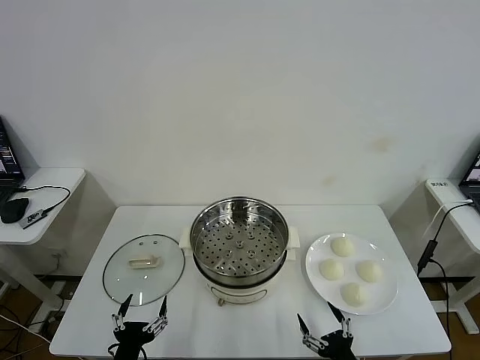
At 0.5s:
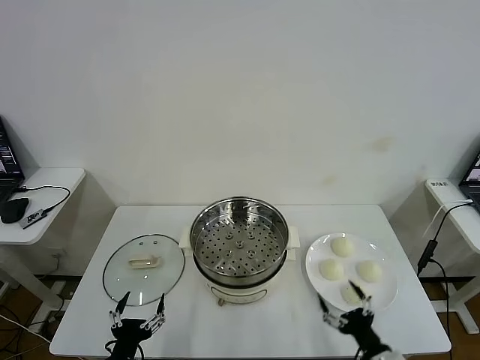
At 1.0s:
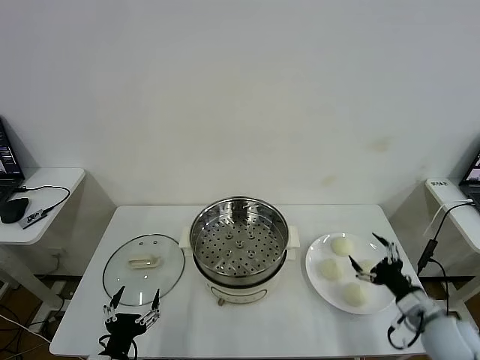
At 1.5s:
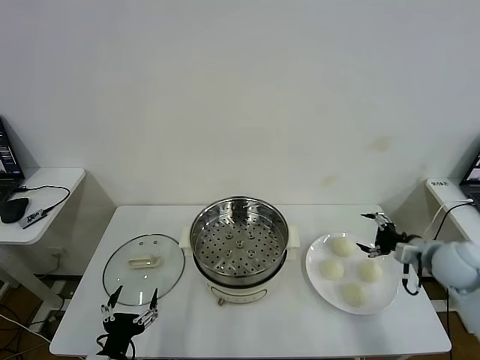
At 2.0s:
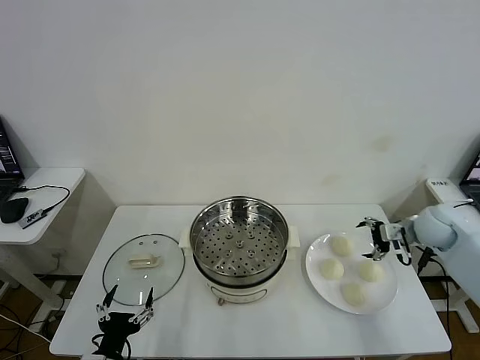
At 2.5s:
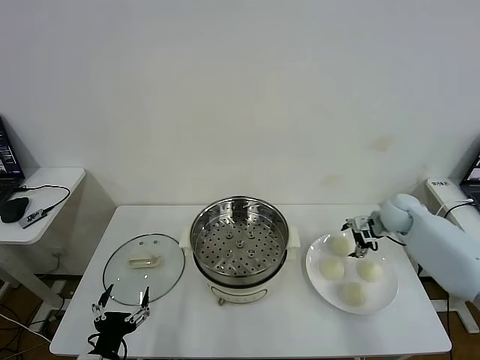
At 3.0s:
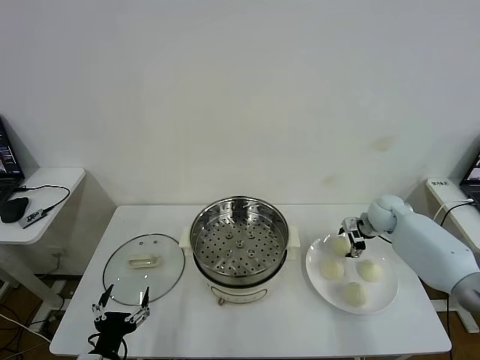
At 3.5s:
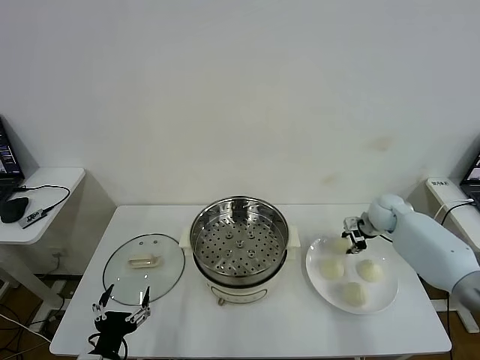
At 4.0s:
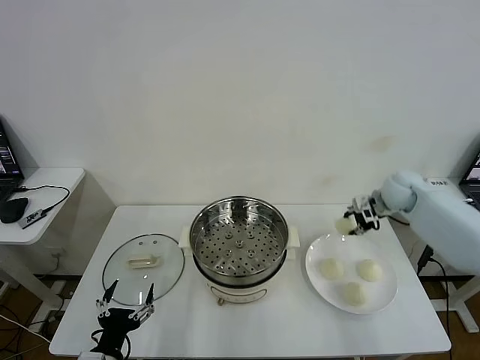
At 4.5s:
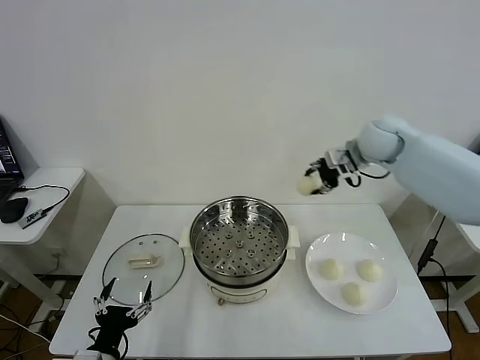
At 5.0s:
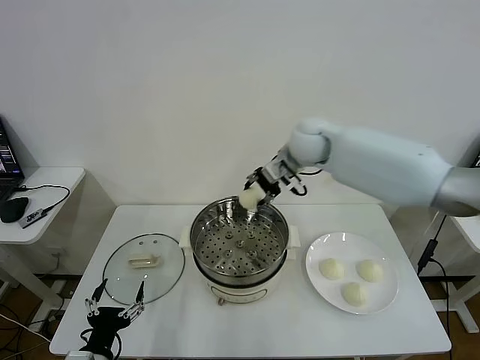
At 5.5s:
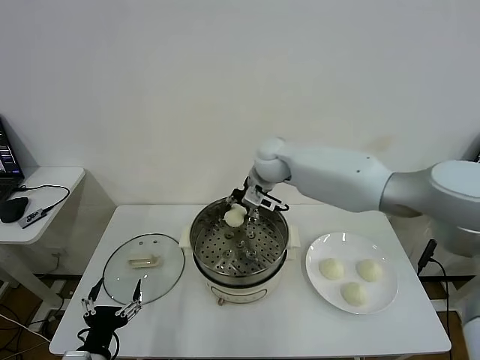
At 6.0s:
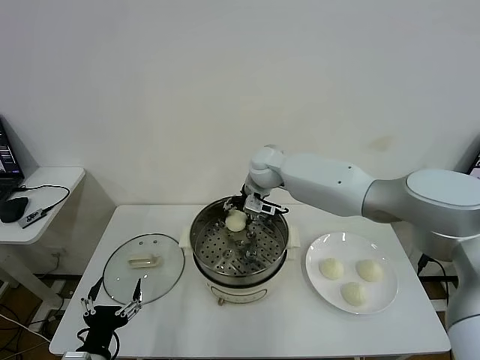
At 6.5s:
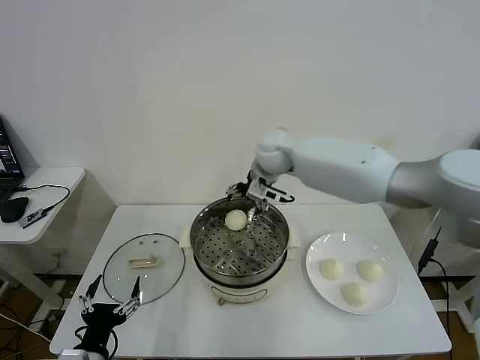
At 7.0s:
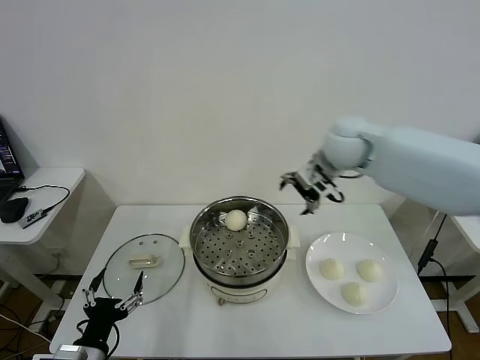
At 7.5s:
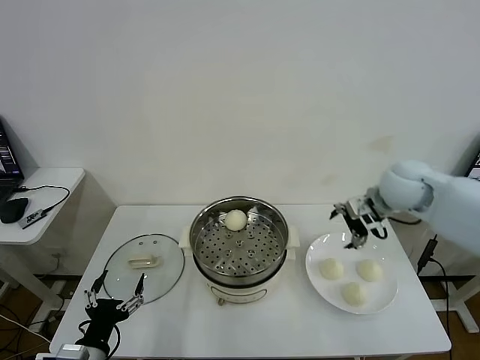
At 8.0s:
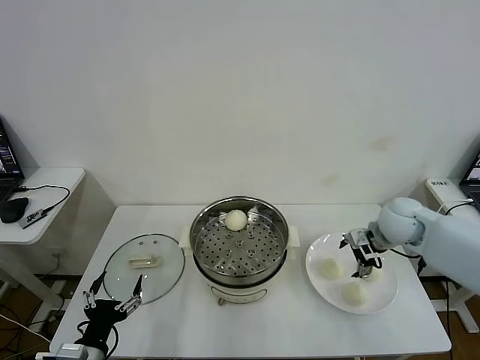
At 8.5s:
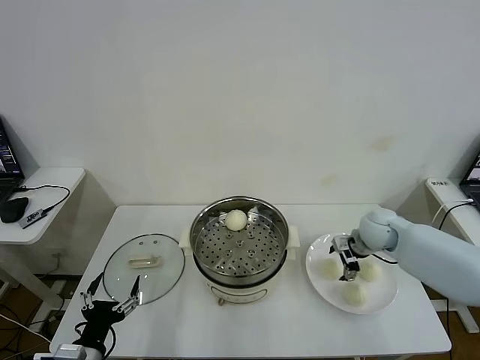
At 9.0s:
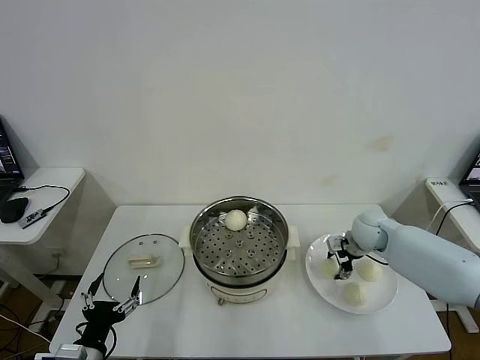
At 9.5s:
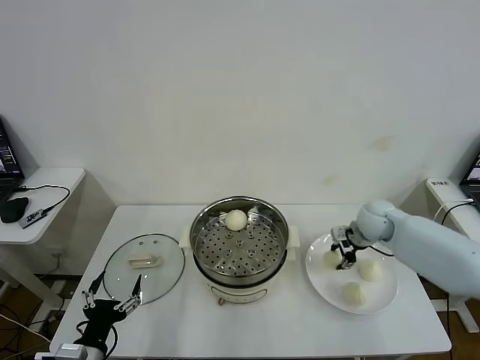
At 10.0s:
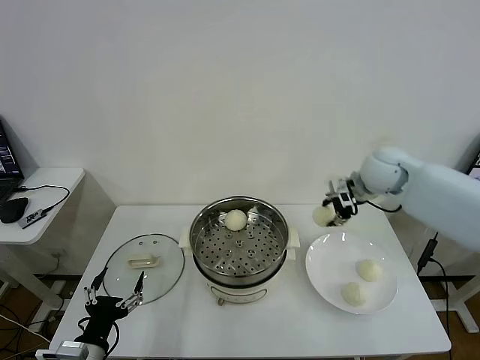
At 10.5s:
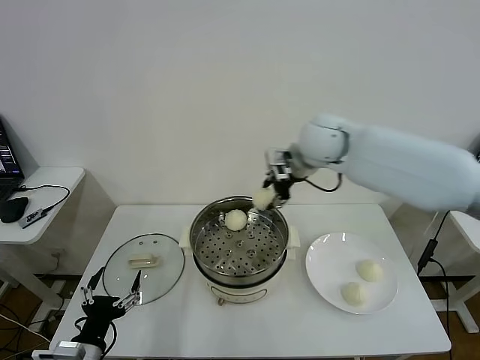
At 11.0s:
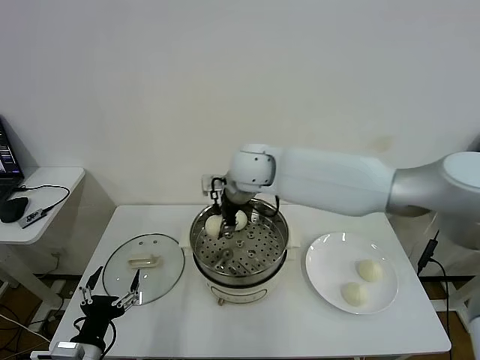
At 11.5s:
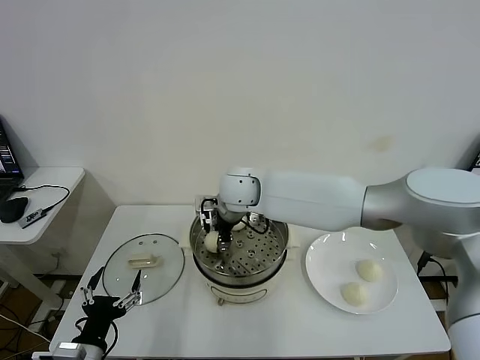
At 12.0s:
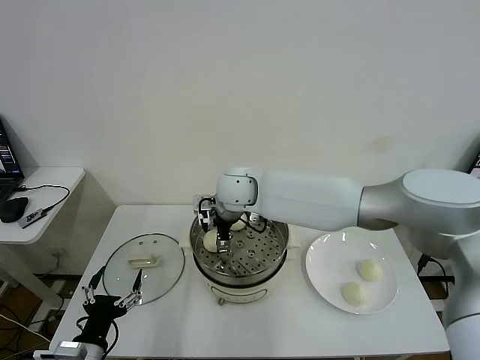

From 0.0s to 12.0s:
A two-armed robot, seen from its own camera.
Task of the whole recording: take steamed baozi put them in steamer then cover it.
Step, from 0.0s to 3.0s: Grasp the baozi in the plate with right gripper.
Step, from 3.5s to 6.0s: Place the baozi on the steamer with right gripper.
Step, from 6.5s to 9.0s: Grasp the baozi in the plate with right gripper.
Step, from 9.5s to 12.0s: Place the baozi on the steamer with right gripper.
From 2.0s to 4.0s: The right gripper travels upward, forward and to the left by about 10 cm, and closes up.
From 4.0s to 6.0s: The right gripper shifts approximately 30 cm to the left, and opens.
From 6.0s to 8.0s: The right gripper travels to the right and backward by about 30 cm.
From 8.0s to 10.0s: The right gripper moves upward, to the left and forward, approximately 15 cm, and closes.
From 10.0s to 12.0s: The right gripper travels to the left by approximately 30 cm, and opens.

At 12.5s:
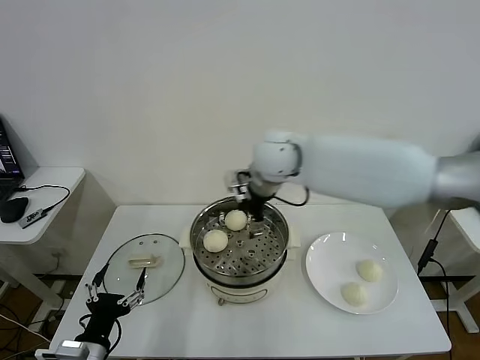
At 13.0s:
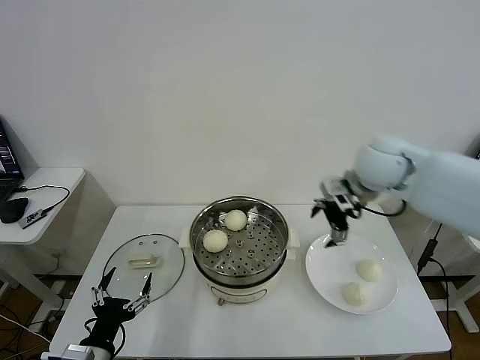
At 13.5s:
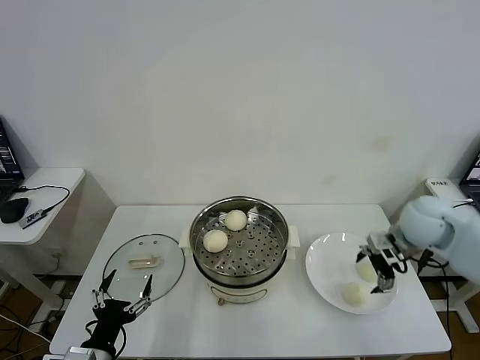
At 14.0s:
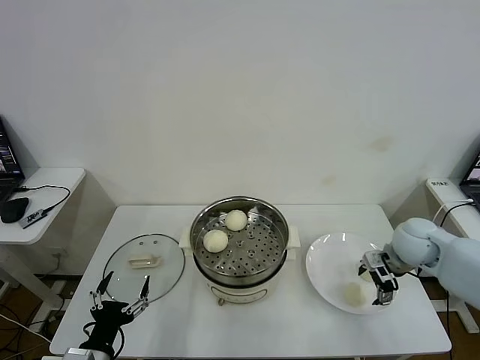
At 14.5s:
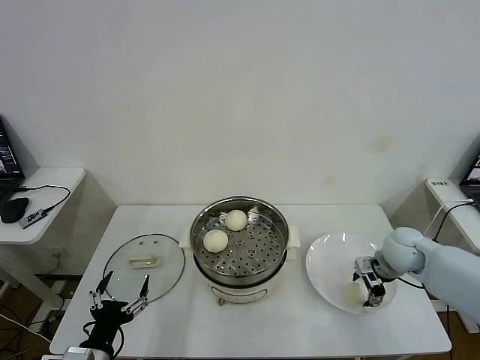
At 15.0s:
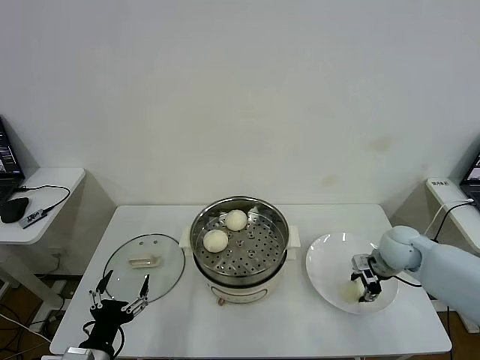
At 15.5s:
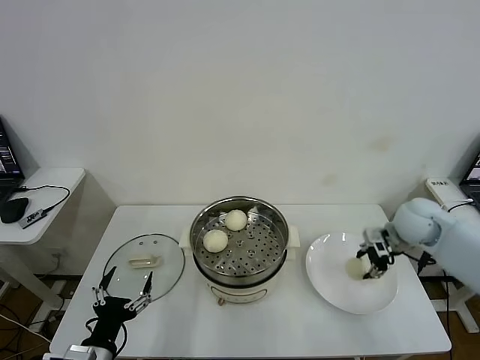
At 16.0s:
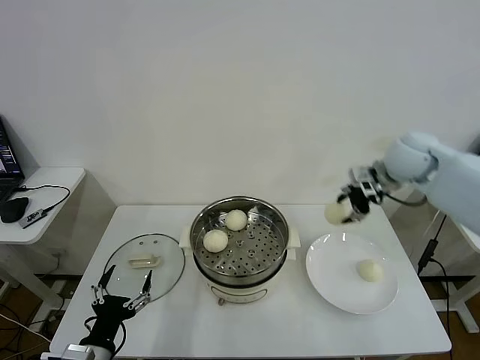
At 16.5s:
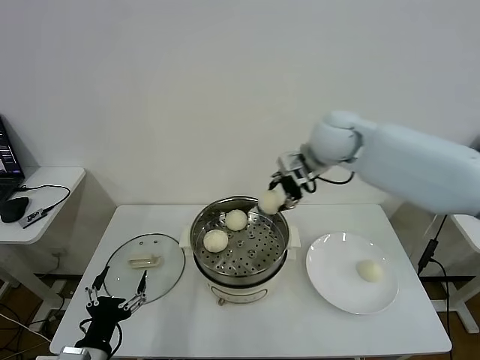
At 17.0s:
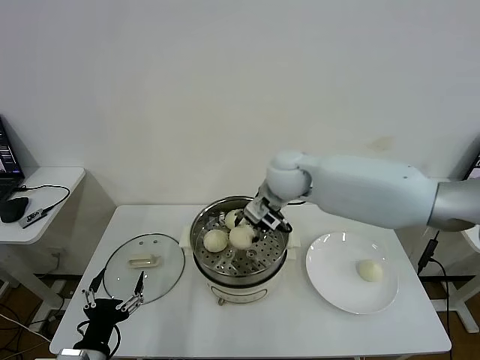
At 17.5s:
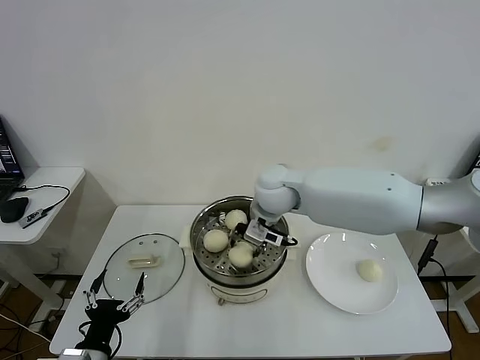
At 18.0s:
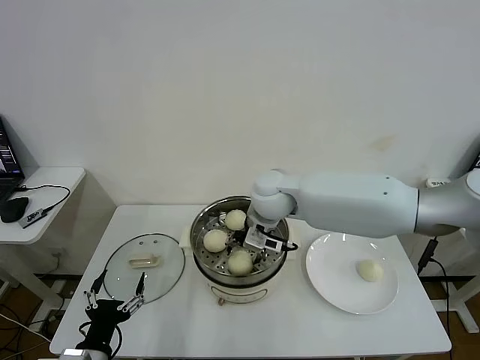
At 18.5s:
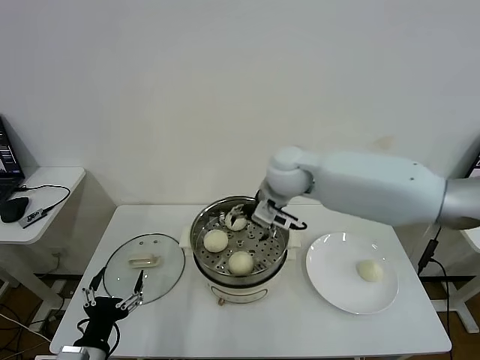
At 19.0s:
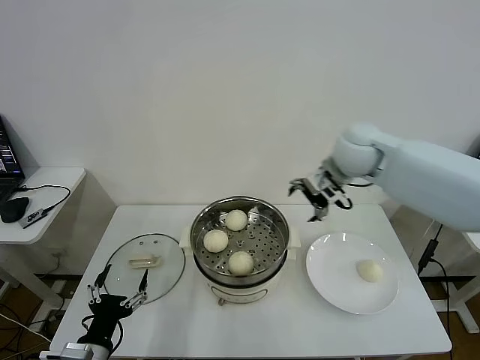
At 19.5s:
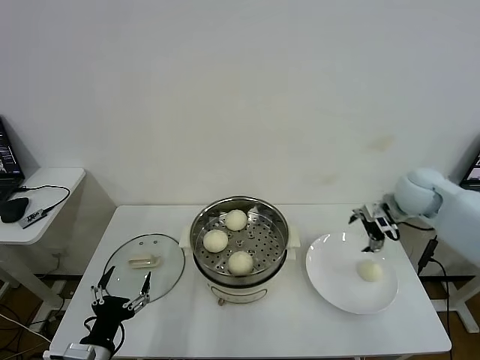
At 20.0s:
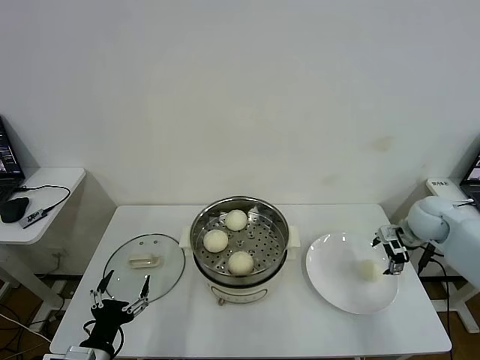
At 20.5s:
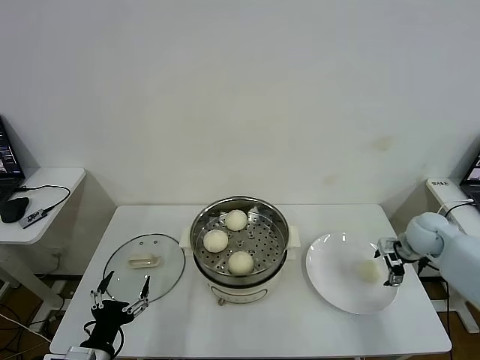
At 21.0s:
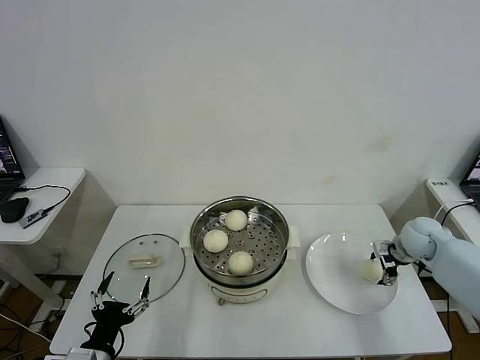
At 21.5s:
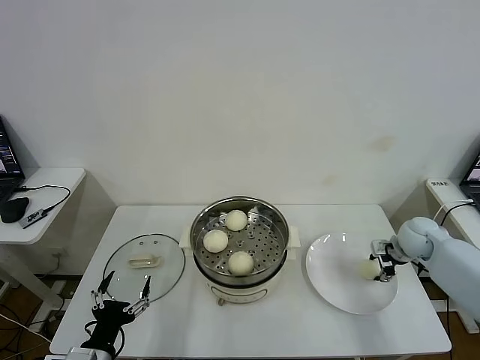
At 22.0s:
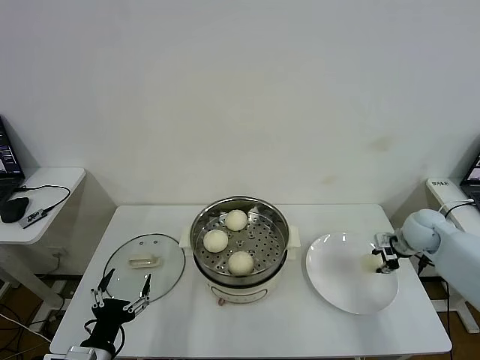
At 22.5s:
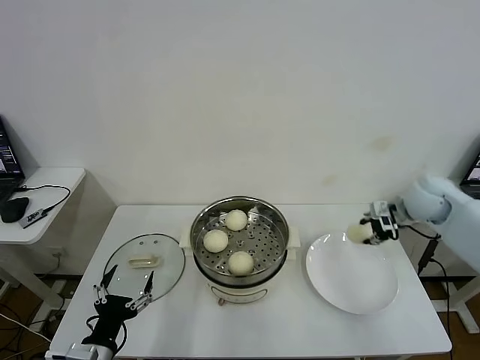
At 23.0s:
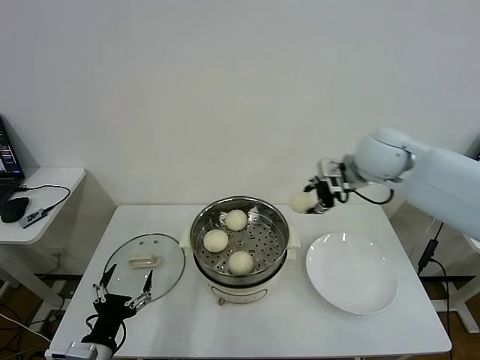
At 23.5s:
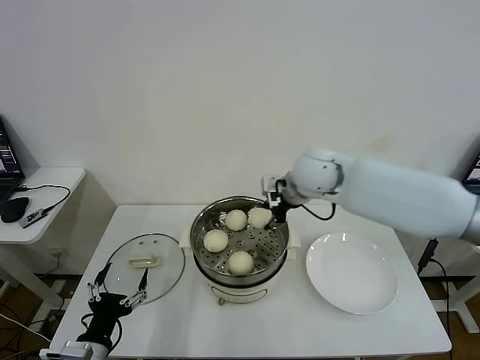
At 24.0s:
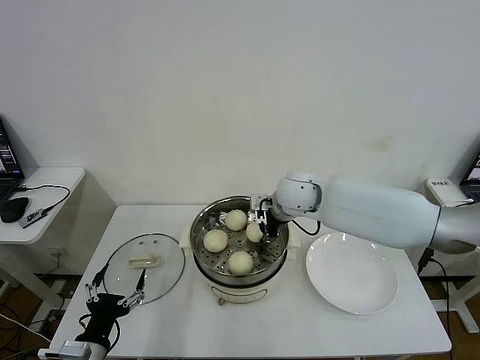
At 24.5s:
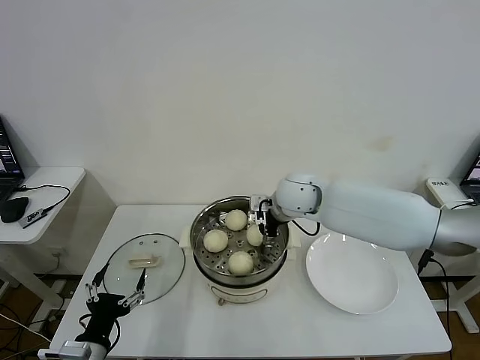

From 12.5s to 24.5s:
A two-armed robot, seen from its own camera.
Task of the whole recording: take steamed baozi put them in steamer then cover it.
Step, from 12.5s to 14.5s: Grasp the baozi in the plate with right gripper.
Step, from 15.0s to 18.0s: Place the baozi on the steamer with right gripper.
Step, from 18.5s to 21.5s: Grasp the baozi in the plate with right gripper.
Step, from 22.0s to 24.5s: Place the baozi on the steamer with right gripper.
From 12.5s to 14.5s: The right gripper is displaced to the right and downward by approximately 35 cm, and closes up.
From 14.5s to 16.5s: The right gripper shifts approximately 35 cm upward, to the left and forward, and closes its fingers.
From 16.5s to 18.5s: The right gripper is displaced to the left by approximately 5 cm, and opens.
From 18.5s to 20.5s: The right gripper travels to the right and downward by roughly 40 cm.
From 20.5s to 22.5s: The right gripper goes some 15 cm upward and to the left, and closes up.
From 22.5s to 24.5s: The right gripper travels to the left by about 25 cm, and opens up.

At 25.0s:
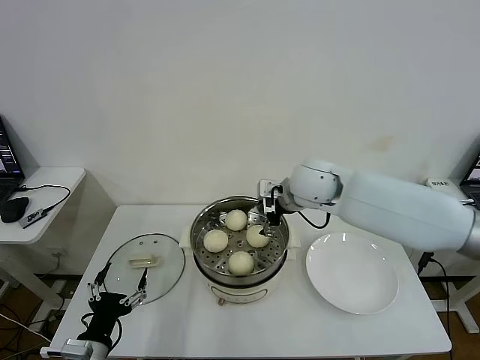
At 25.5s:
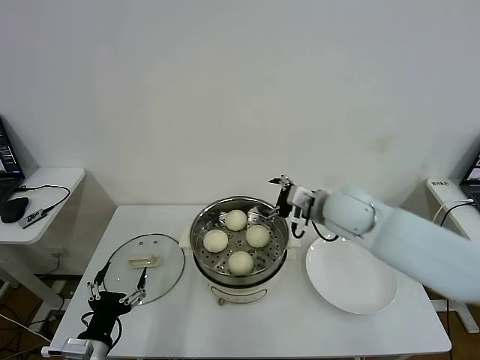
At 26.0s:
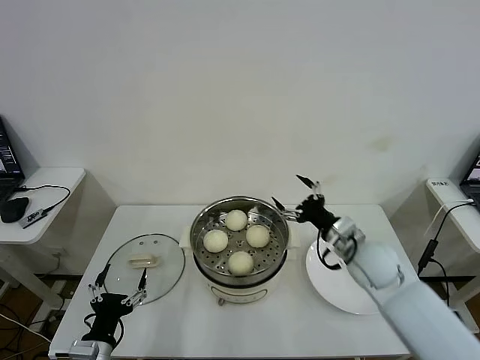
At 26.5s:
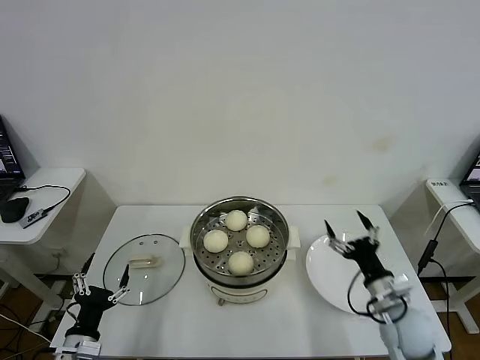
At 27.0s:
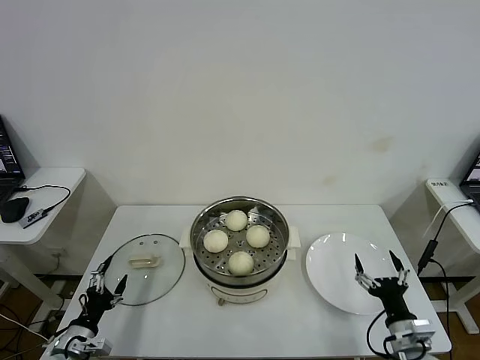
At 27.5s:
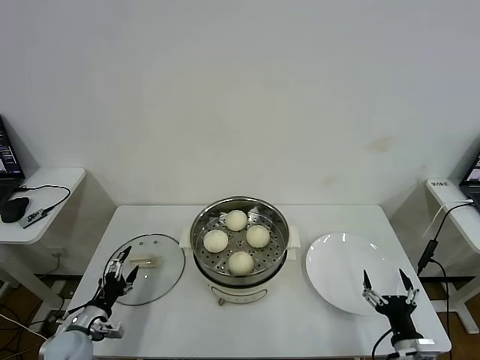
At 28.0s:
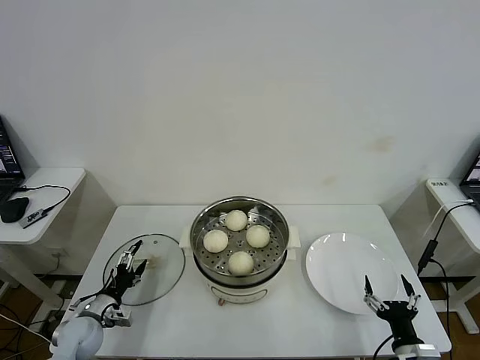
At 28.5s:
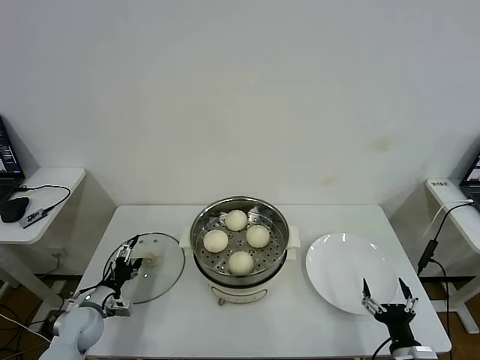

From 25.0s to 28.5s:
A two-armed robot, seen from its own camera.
Task of the whole recording: take steamed baozi put them in steamer then cover it.
From 25.0s to 27.0s: The left gripper heads to the left, downward and forward, covering roughly 15 cm. Meanwhile the right gripper moves backward, downward and to the right, some 40 cm.
From 27.0s to 28.5s: The left gripper goes some 10 cm forward, while the right gripper moves roughly 5 cm.
